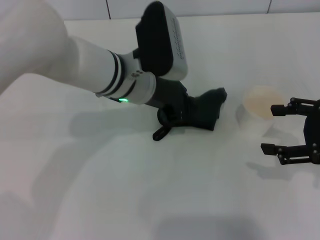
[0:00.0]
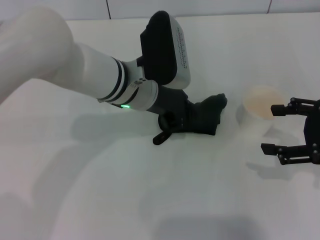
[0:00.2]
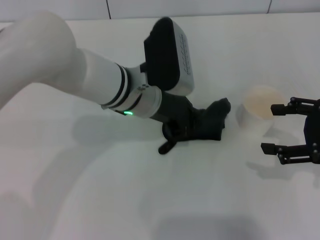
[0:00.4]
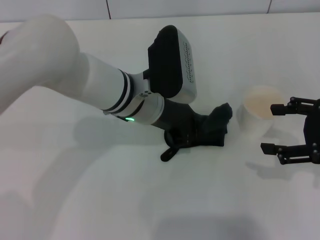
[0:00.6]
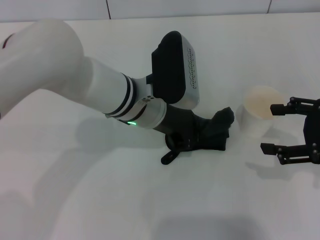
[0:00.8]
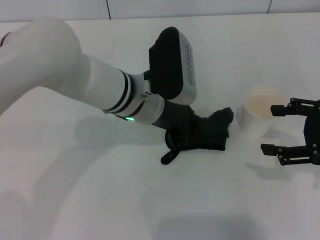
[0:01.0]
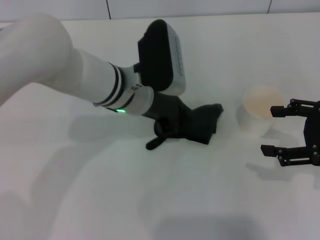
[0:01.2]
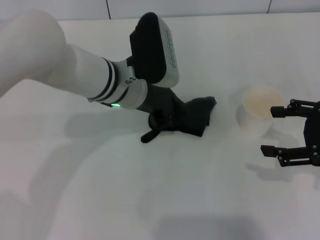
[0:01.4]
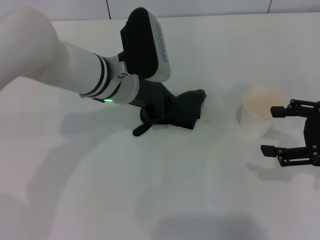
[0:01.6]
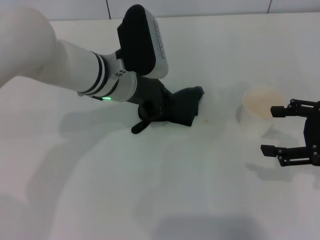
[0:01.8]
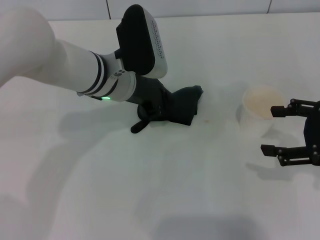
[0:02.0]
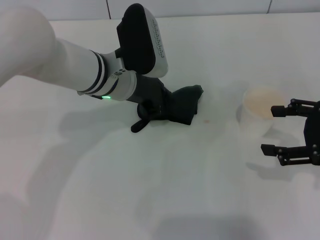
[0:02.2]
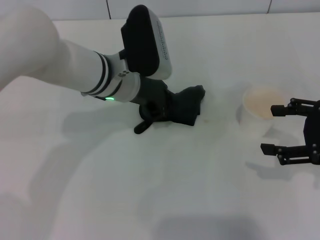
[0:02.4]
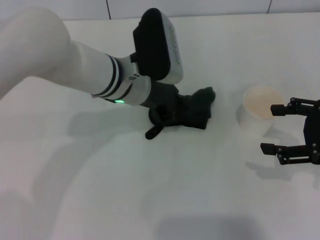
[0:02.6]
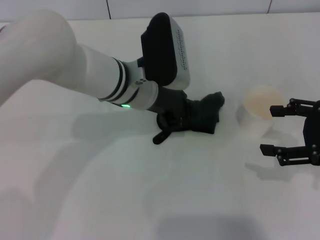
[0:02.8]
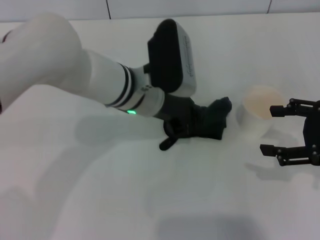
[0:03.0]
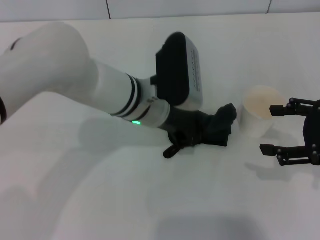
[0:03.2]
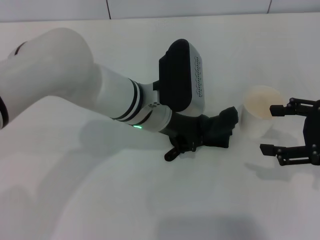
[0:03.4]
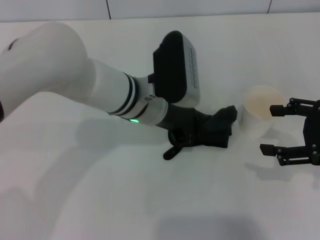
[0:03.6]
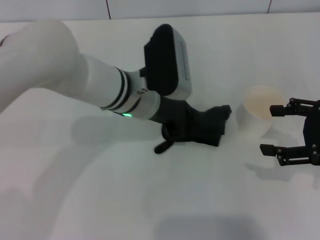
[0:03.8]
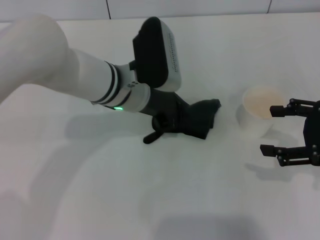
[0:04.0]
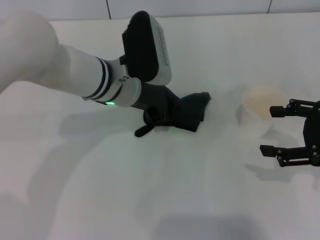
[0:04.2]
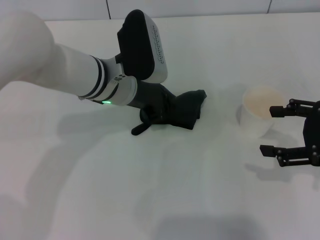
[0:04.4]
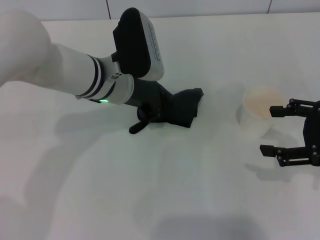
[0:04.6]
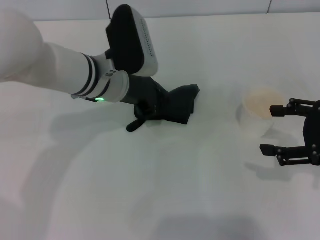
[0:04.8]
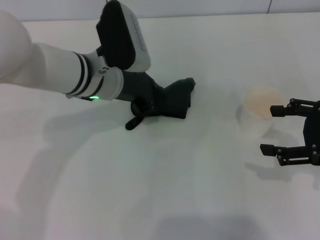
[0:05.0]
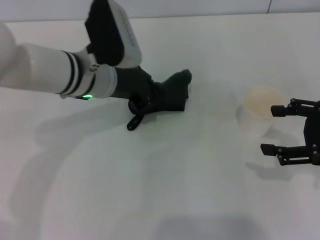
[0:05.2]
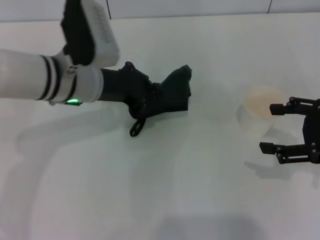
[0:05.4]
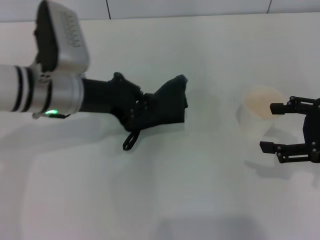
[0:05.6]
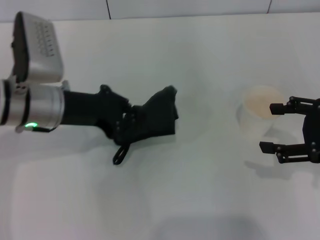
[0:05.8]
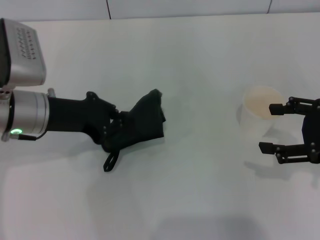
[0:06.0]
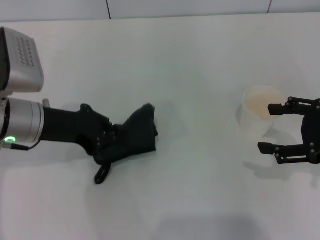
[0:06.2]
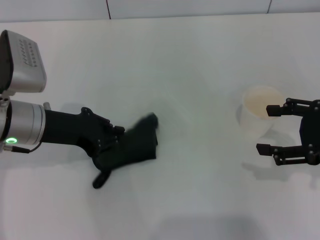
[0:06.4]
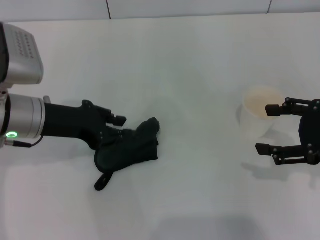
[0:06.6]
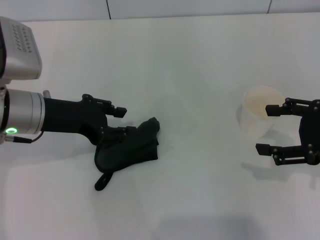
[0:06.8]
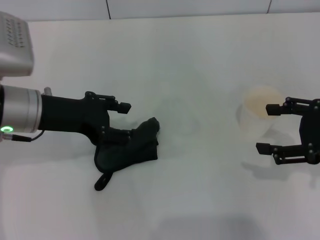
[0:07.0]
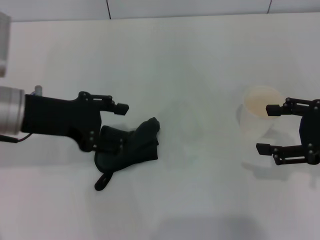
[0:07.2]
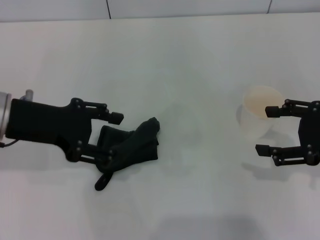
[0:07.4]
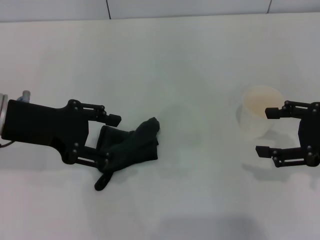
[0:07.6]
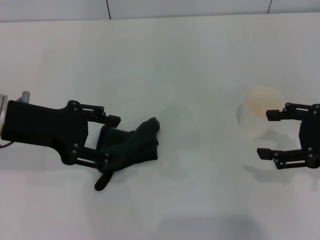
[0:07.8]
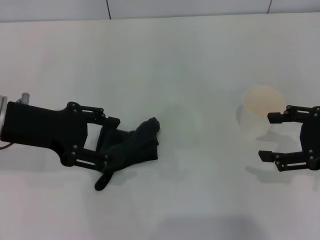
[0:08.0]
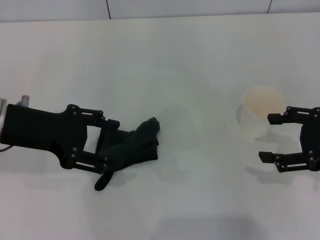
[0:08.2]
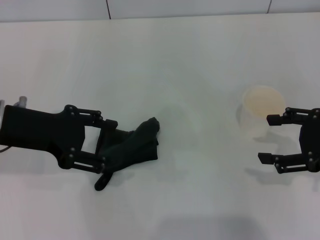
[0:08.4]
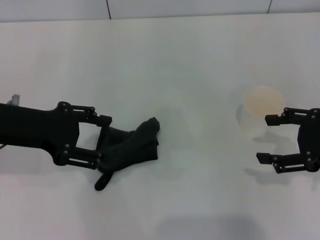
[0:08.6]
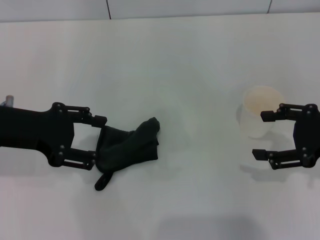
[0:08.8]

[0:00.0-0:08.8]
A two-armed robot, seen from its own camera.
Step, 0:00.0 to 0:04.6: Wipe the stains off the table with the left gripper.
Step, 0:05.0 to 0:07.2: Place the rag on the table with the left gripper.
0:00.0 to 0:04.4: There are only small adjustments of the grippers.
0:04.4 to 0:05.8: The left gripper travels to the left by approximately 10 cm.
0:05.8 to 0:07.4: The left gripper changes place by about 5 cm, and opens up.
0:07.4 to 0:08.8: There are only small adjustments of the grippers.

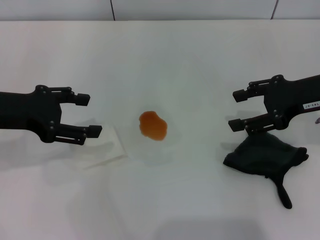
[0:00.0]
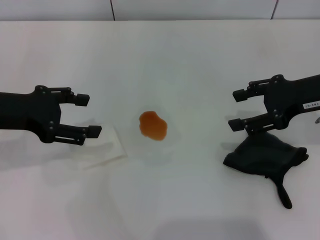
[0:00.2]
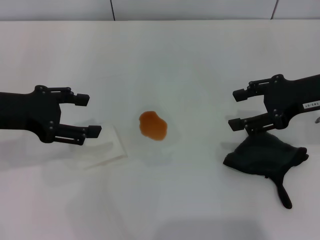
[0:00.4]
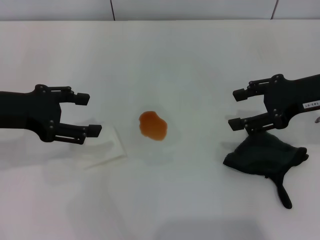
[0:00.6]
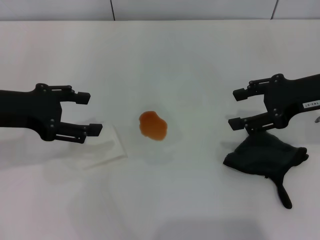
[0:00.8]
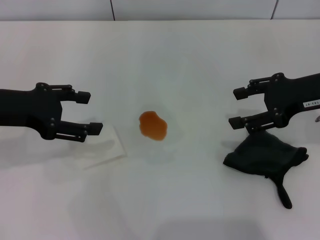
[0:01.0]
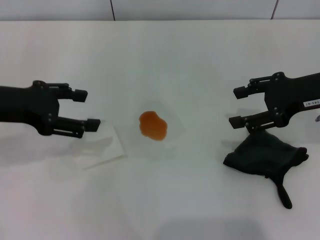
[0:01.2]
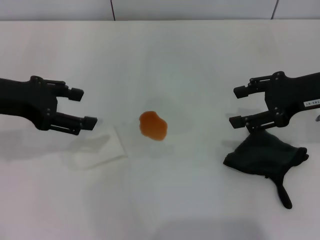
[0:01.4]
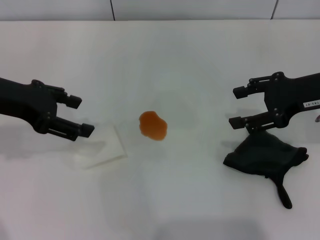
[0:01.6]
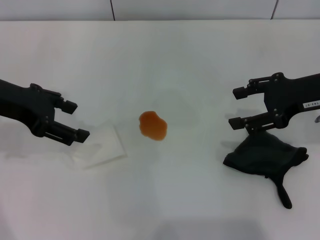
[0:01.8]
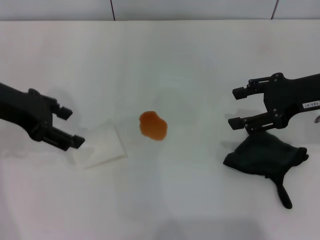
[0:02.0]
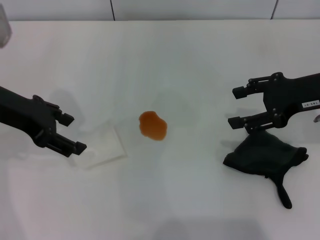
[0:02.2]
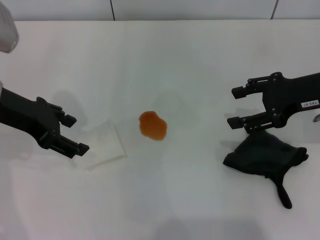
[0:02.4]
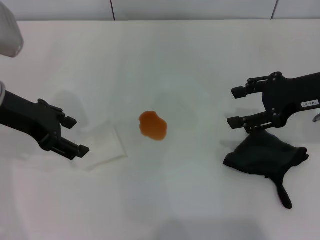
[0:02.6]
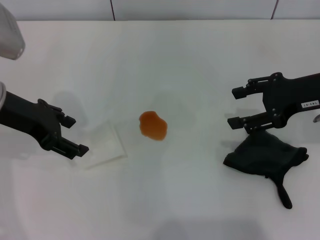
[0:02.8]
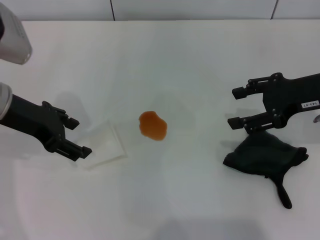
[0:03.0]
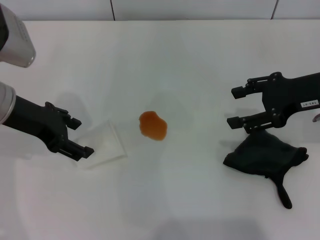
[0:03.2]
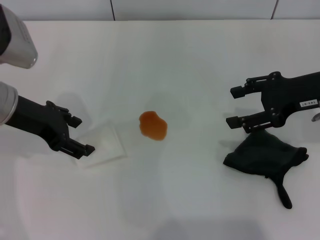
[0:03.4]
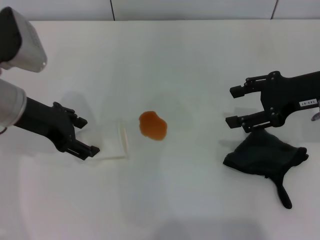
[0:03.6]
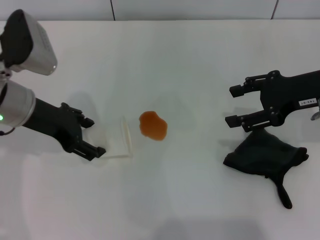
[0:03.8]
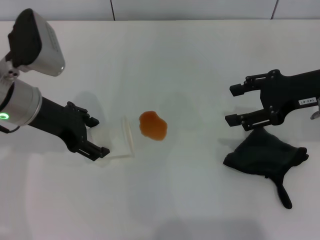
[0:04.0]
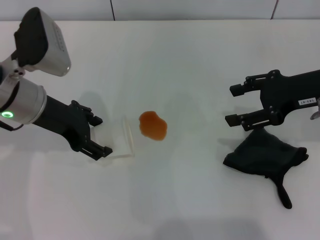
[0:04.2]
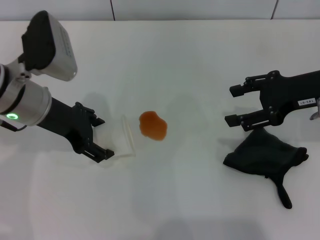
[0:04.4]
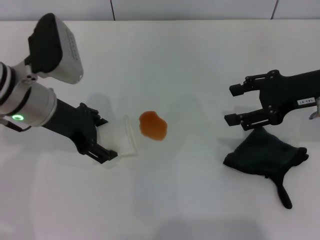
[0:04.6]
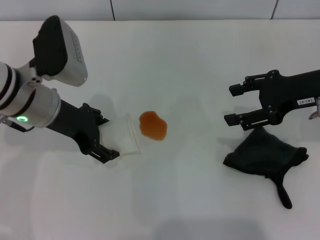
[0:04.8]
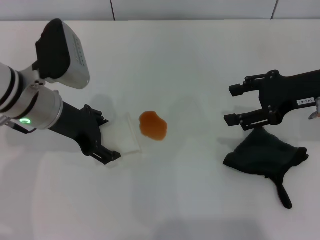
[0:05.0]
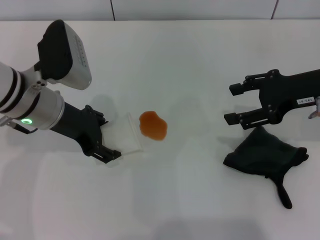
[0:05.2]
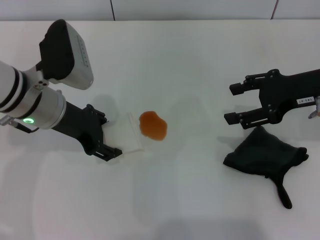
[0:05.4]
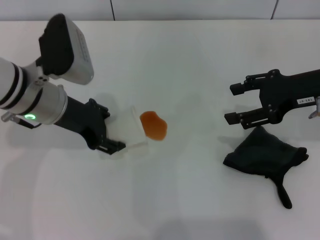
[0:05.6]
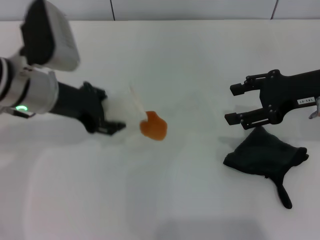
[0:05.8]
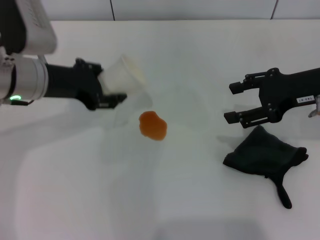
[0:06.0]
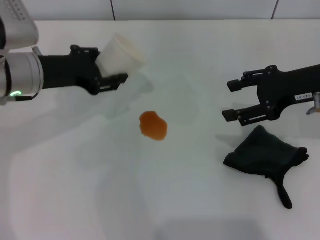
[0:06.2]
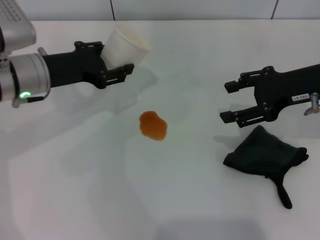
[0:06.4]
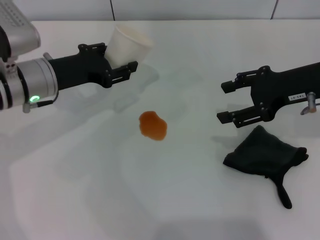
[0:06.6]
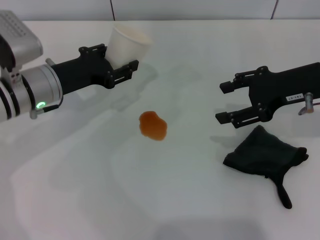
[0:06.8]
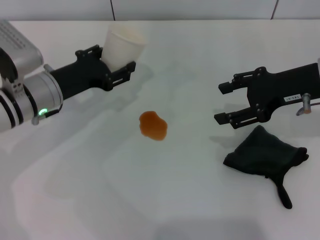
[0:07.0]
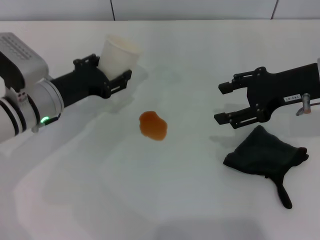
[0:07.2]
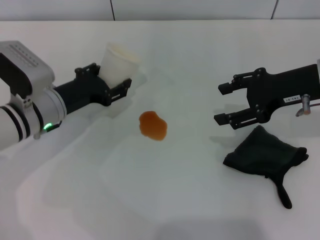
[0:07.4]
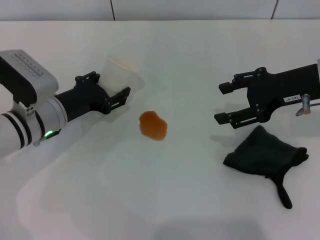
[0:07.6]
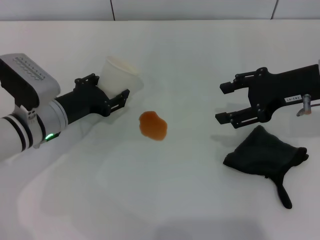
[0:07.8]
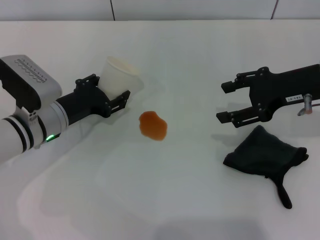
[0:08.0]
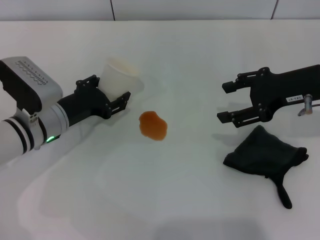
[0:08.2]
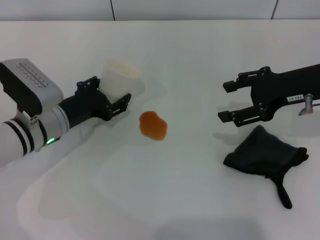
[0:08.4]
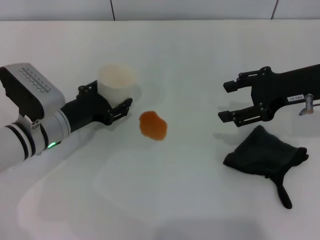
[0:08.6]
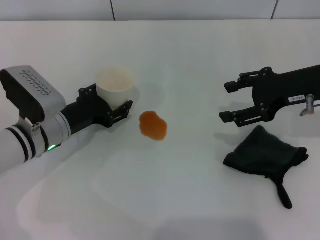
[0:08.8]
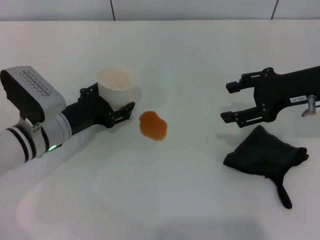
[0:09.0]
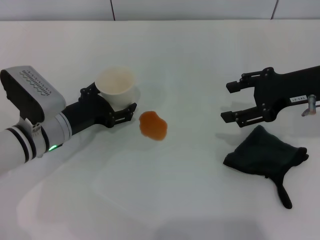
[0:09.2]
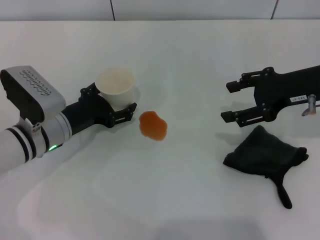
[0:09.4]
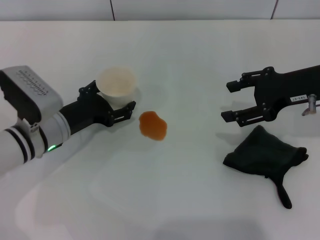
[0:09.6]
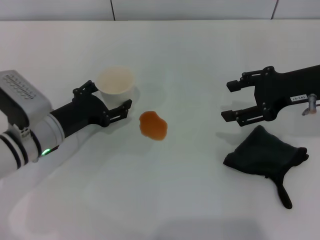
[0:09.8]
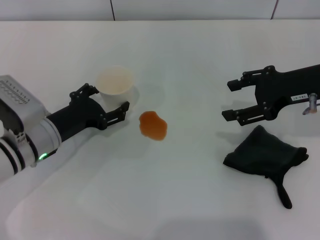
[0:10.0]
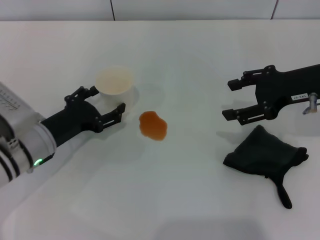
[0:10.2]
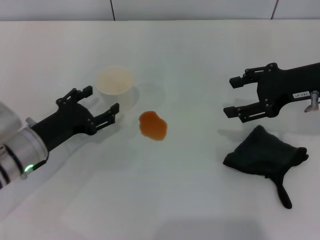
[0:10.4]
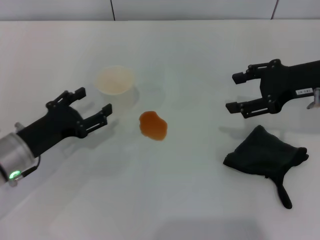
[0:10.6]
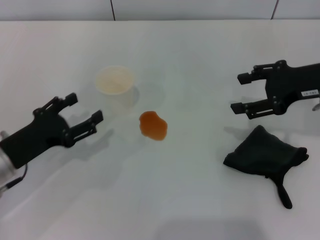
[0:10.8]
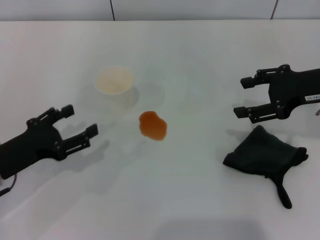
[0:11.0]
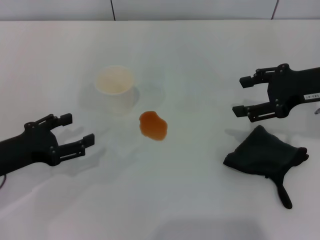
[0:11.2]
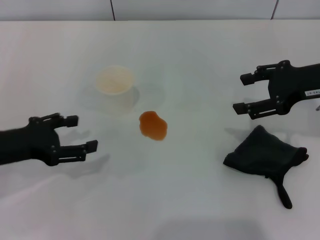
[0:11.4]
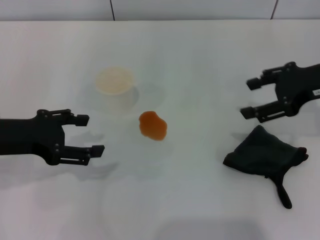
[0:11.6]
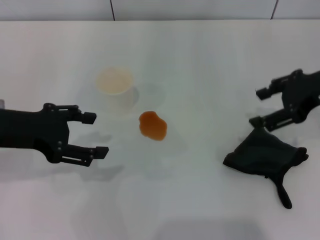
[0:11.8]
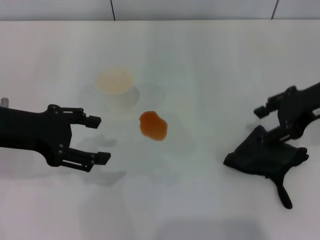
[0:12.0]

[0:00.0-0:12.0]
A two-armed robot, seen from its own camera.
Step, 0:00.0 to 0:04.6: Grasp the paper cup with the left gripper.
Step, 0:04.8 to 0:10.6: Stand the paper cup upright with the left gripper.
0:00.0 to 0:01.6: The grippers make only small movements.
0:01.6 to 0:03.0: The grippers stay close to where they were, moving slightly.
0:03.0 to 0:04.4: There are only small adjustments of the grippers.
0:04.4 to 0:06.0: The left gripper closes.
0:06.0 to 0:07.6: The left gripper travels downward by approximately 10 cm.
0:07.6 to 0:09.0: There are only small adjustments of the grippers.
0:09.0 to 0:10.4: The left gripper changes place by some 5 cm, and opens its fingers.
0:10.4 to 0:12.0: The left gripper heads upward, covering some 15 cm.

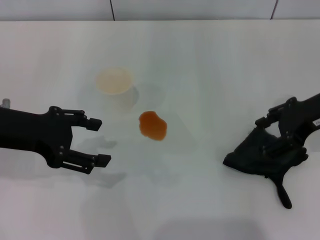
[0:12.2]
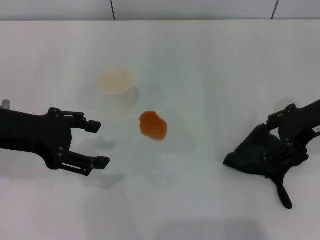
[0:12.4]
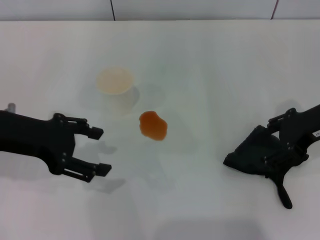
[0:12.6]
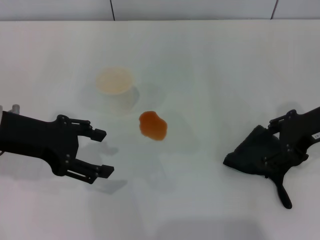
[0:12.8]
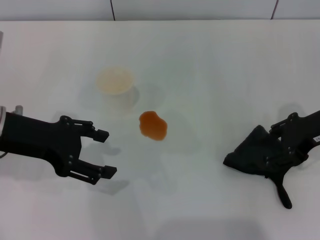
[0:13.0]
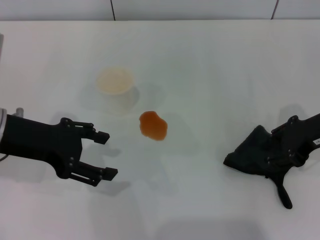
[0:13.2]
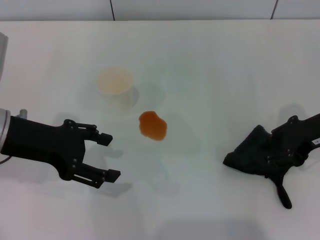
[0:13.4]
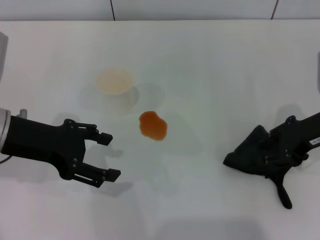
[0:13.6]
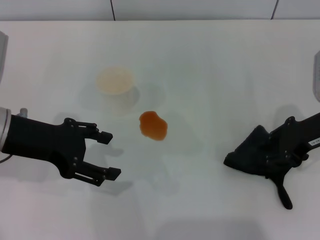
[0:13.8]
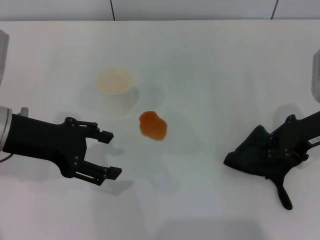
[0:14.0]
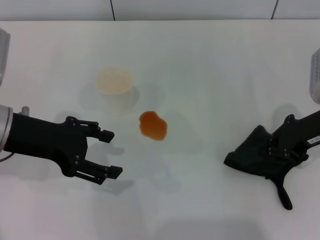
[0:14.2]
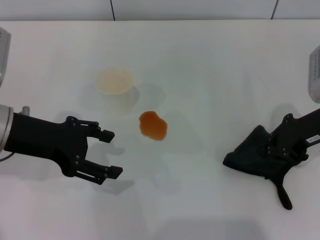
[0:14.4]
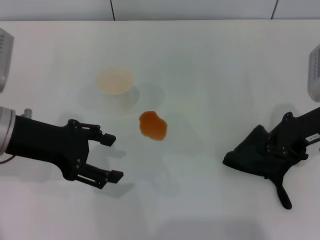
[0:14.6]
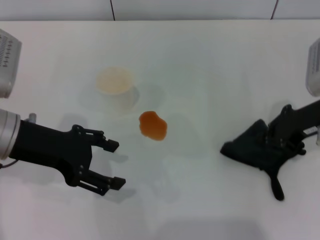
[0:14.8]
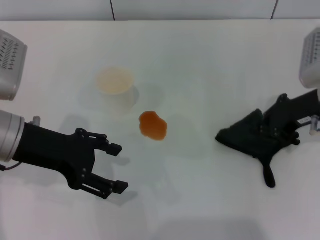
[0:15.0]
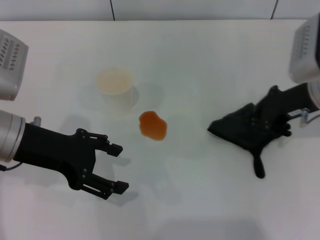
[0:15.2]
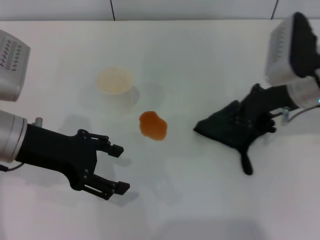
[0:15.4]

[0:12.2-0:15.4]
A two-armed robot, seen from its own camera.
Step, 0:12.2 to 0:15.0: Grasp the rag with the right gripper.
0:12.2 to 0:13.8: The right gripper closes.
0:13.8 to 0:15.4: The right gripper travels to the left by some 5 cm, and closes up.
